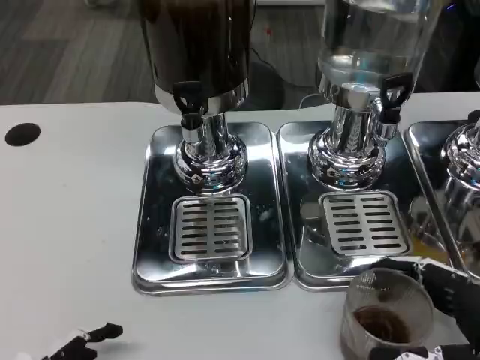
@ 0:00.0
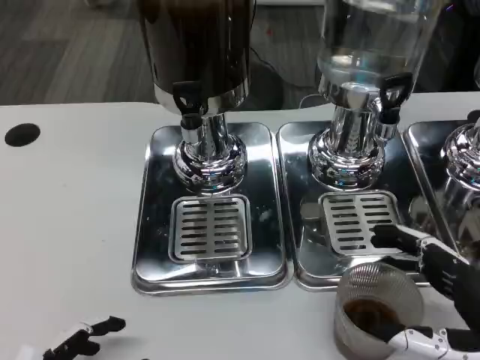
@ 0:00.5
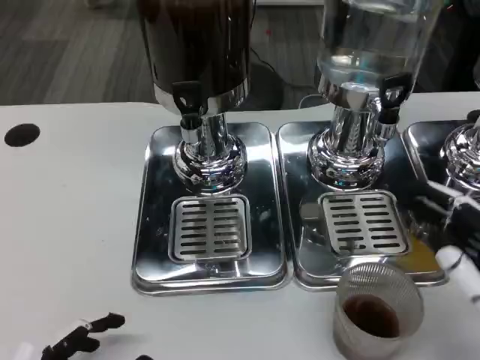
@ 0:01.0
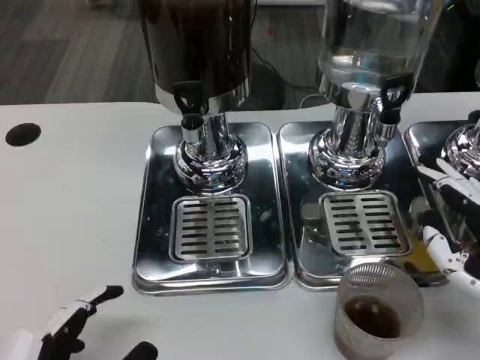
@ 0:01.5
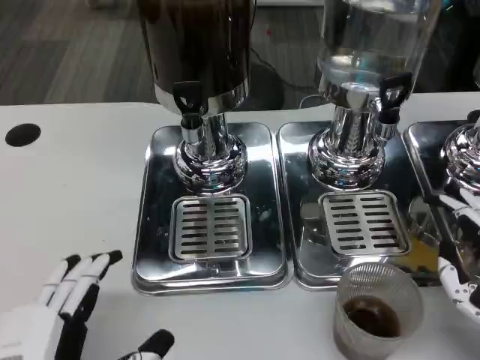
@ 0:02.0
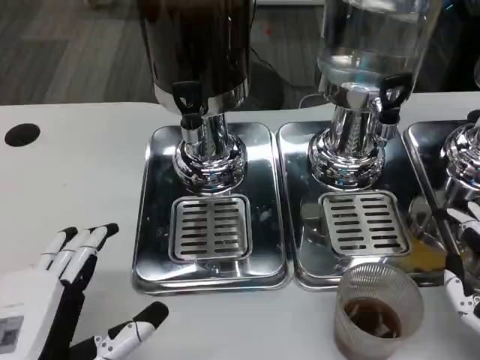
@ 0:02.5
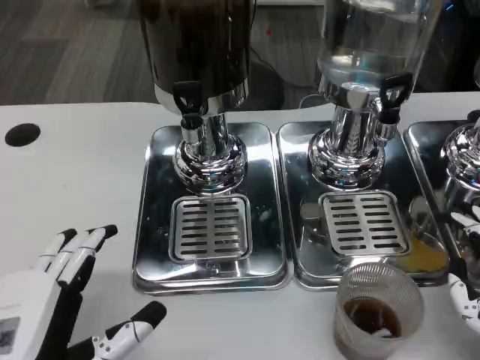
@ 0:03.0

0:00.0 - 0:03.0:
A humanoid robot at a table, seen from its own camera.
Task of the whole recording: Grasp the cup under the faucet to collect the drink, then remove the cup.
0:00.0 - 0:01.5: The right hand heads upward, covering roughly 5 cm.
